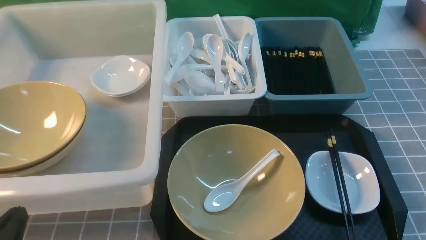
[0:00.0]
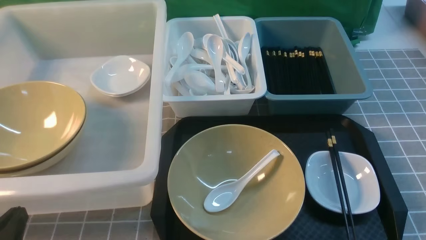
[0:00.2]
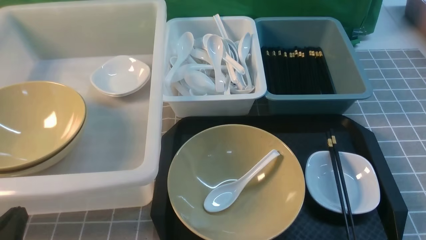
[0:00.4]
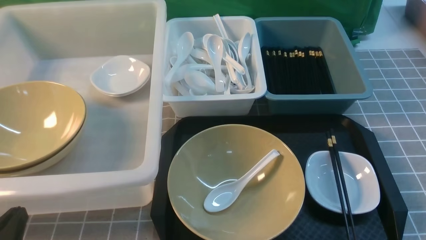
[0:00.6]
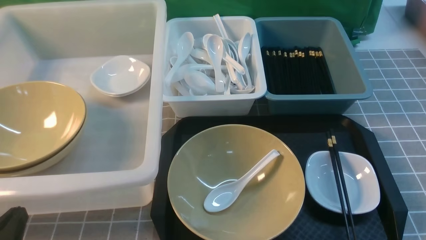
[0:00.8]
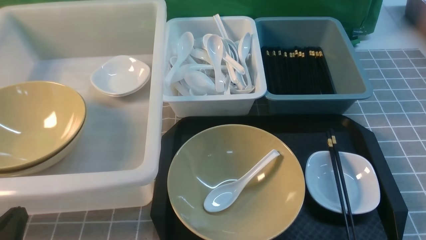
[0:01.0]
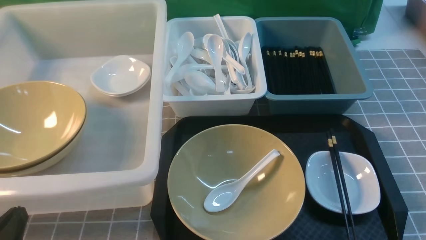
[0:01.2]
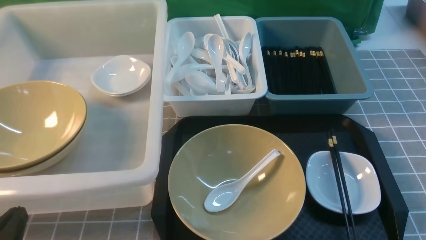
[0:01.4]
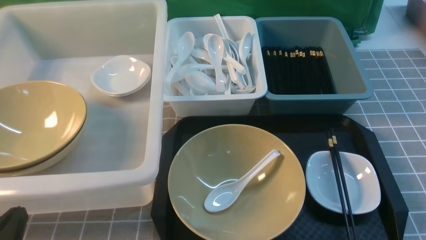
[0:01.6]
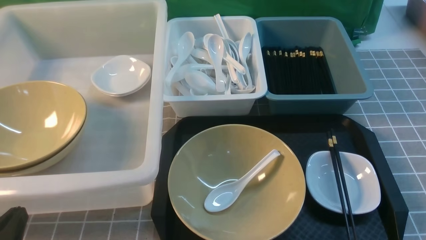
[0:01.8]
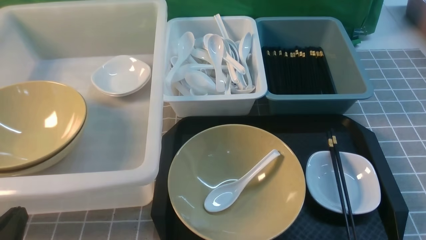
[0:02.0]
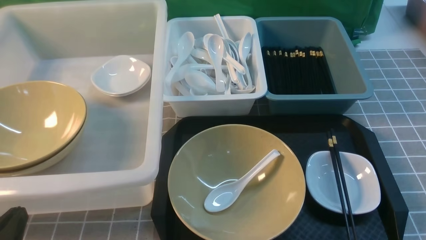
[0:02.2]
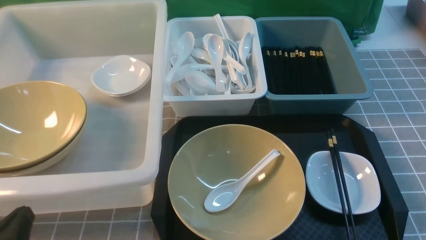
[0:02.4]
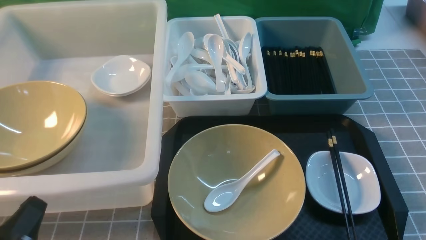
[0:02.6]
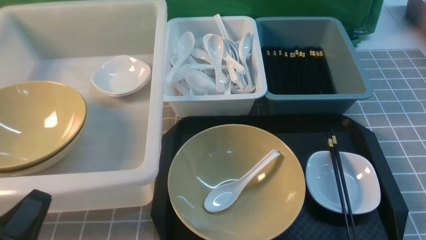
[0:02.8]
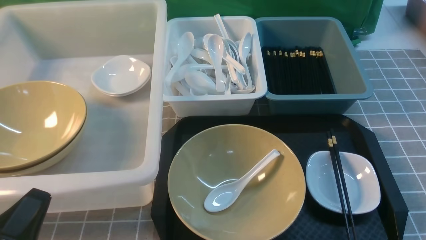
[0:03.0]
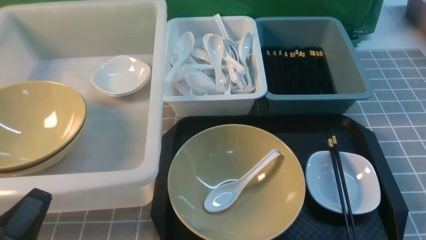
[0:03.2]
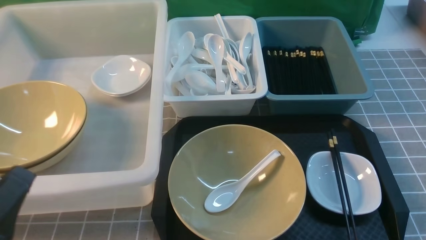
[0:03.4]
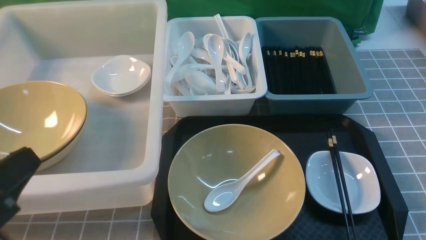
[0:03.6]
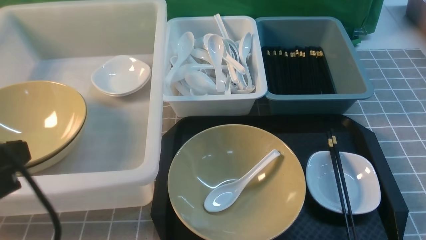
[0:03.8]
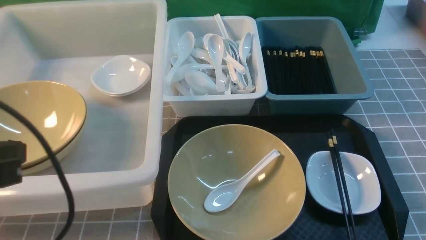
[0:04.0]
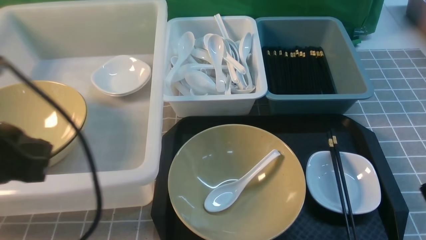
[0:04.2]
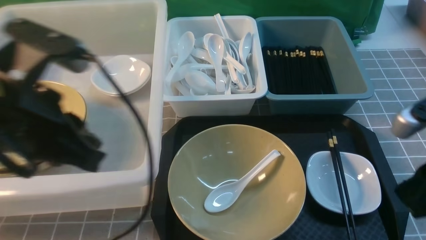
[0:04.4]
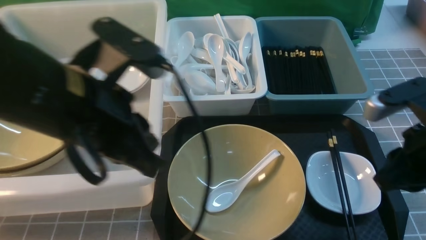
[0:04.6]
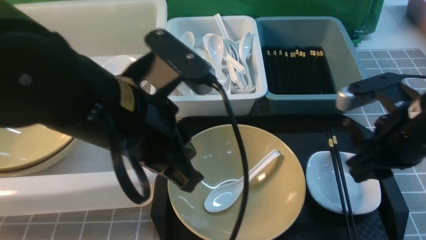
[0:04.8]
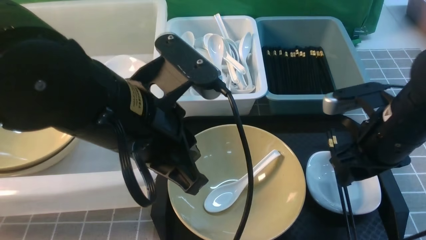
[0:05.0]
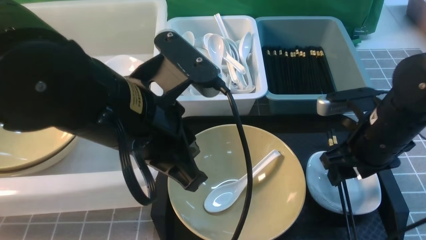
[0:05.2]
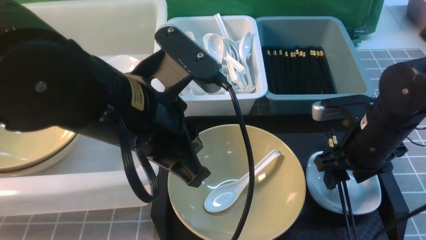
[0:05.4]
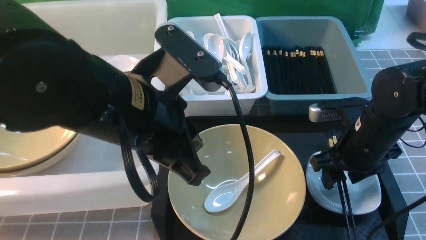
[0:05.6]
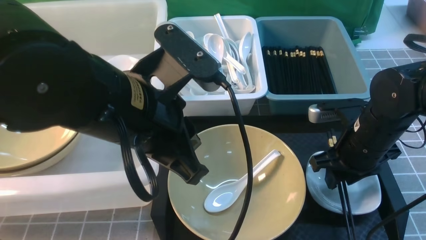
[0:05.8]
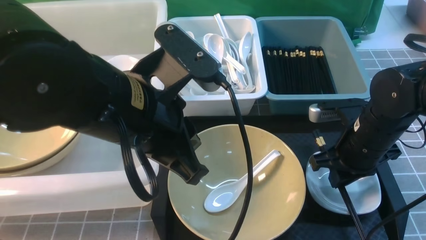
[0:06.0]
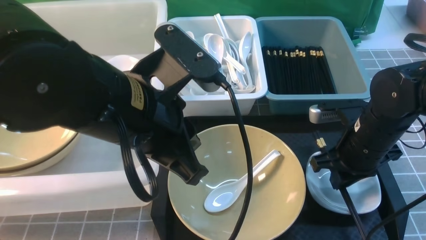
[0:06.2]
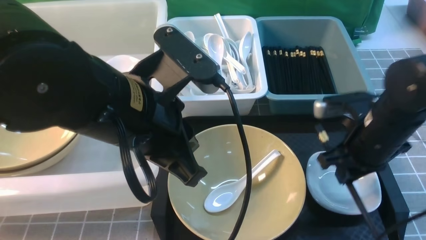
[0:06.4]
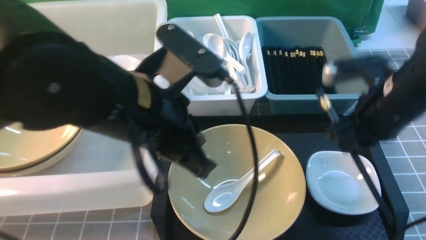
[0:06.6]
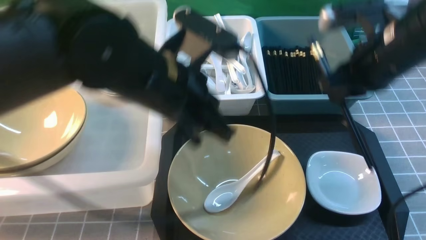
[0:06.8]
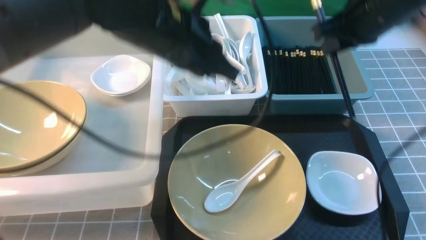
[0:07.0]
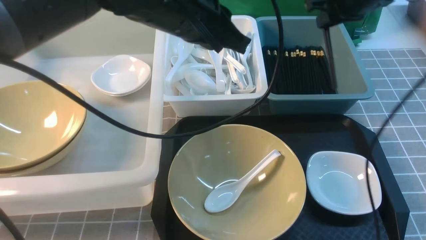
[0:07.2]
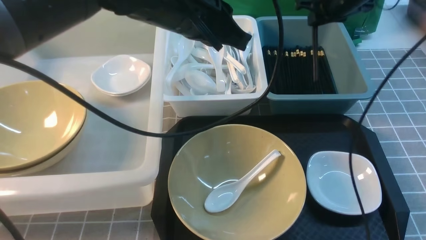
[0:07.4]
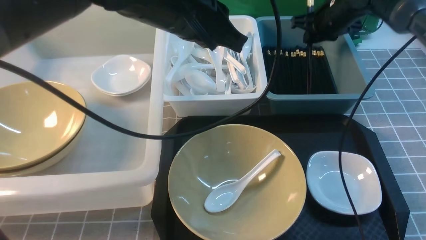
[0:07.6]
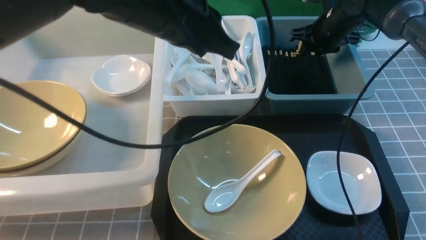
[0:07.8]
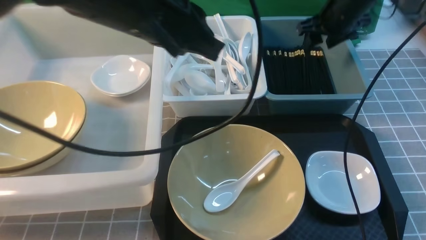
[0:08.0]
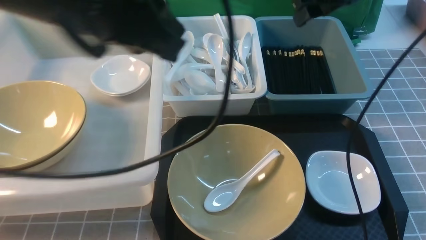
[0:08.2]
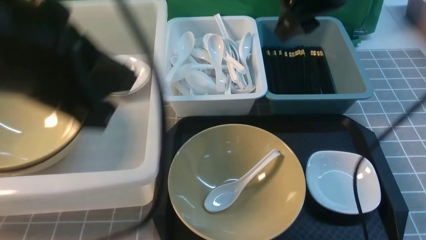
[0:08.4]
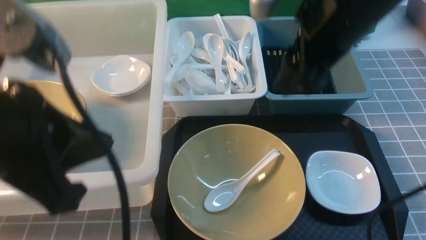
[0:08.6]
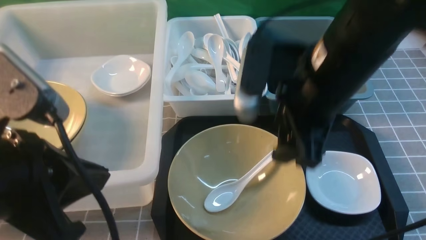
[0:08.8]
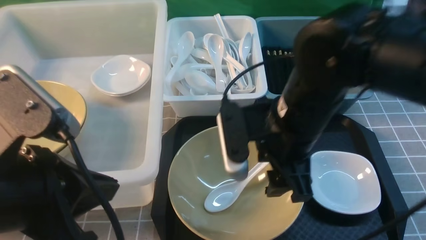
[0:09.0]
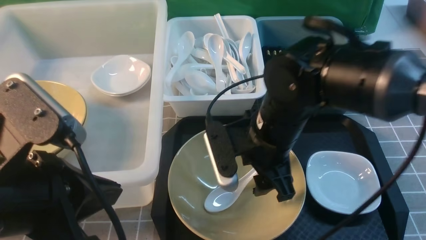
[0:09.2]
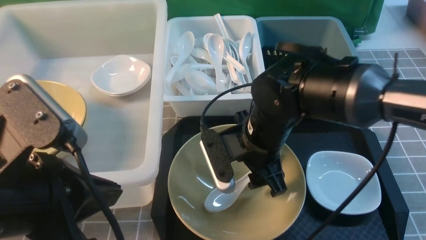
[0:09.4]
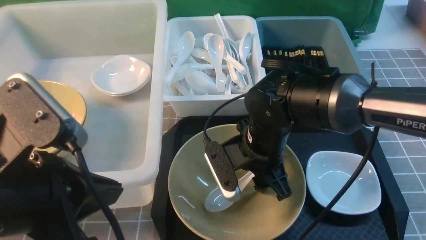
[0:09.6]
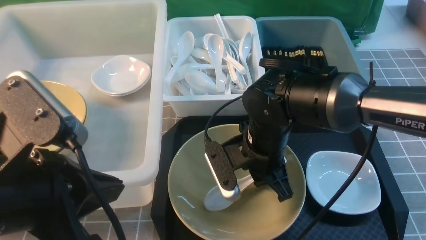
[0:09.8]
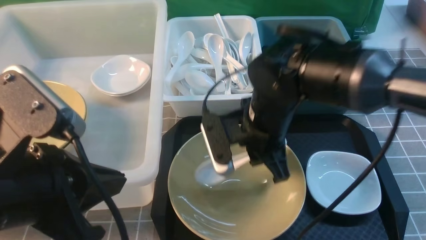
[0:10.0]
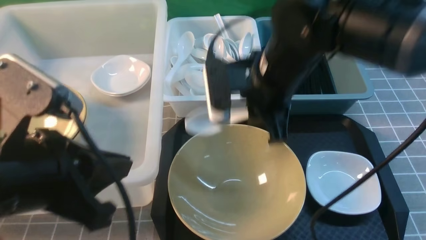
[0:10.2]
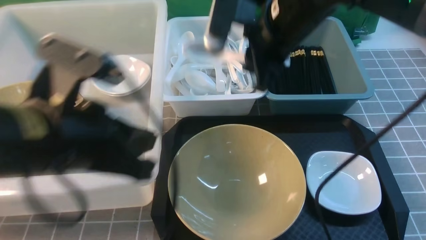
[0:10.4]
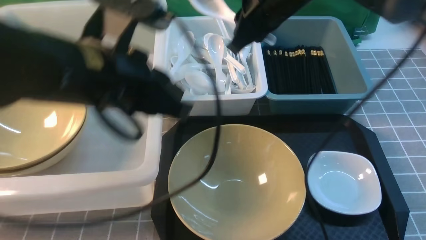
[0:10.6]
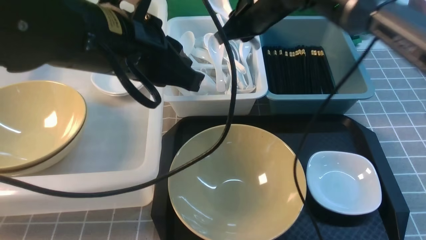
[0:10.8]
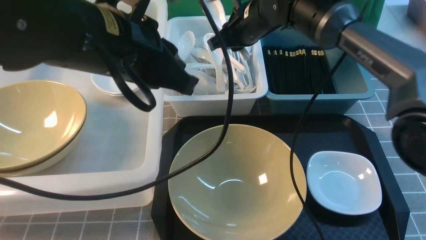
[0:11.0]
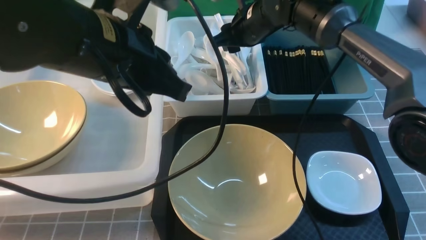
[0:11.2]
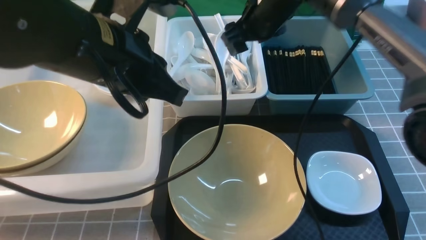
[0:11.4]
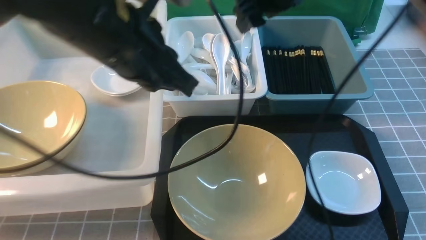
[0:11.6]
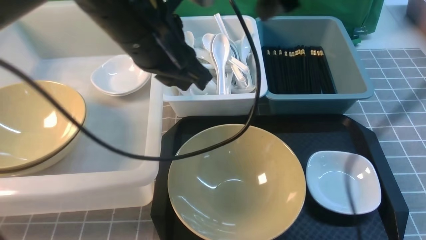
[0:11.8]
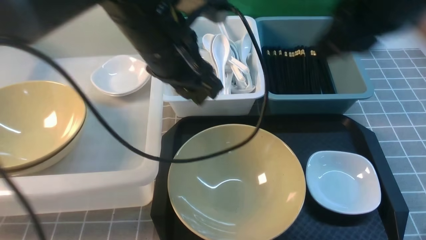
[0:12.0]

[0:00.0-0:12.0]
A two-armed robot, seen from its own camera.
Task of the whole recording: on grey table put chopsticks spoon bowls plates into blue grey white boxes.
Step, 0:00.0 to 0:06.4: use the right arm to grab the chopsticks.
Step, 0:06.8 to 0:08.0: use the right arm to put the chopsticks into the small storage box on the right.
Step, 0:08.2 to 0:10.0: use the right arm to grab the soup spoon in the middle.
Step, 0:10.2 to 0:11.4: use the right arm to put the soup spoon into the small storage box in the middle.
0:00.0 to 0:01.6: Both grippers stay about where they are.
0:03.0 to 0:04.4: The right gripper travels upward, forward and to the left by about 20 cm. Meanwhile the left gripper is displaced upward, forward and to the right by roughly 20 cm.
0:04.4 to 0:06.0: The left gripper goes roughly 10 cm to the right; the right gripper goes some 15 cm forward and downward, and opens, then closes again.
0:06.0 to 0:07.6: The left gripper heads forward, covering approximately 10 cm, while the right gripper shifts roughly 25 cm forward.
0:07.6 to 0:09.0: Both grippers travel together backward and to the left, some 25 cm. The right gripper opens its fingers.
0:09.0 to 0:10.4: The left gripper goes about 5 cm forward. The right gripper moves forward and upward, some 10 cm, and closes its fingers.
0:10.4 to 0:12.0: The right gripper goes roughly 15 cm backward, to the right and upward, and opens, then closes once more. Meanwhile the left gripper moves forward and to the right, approximately 15 cm, and opens its fingers.

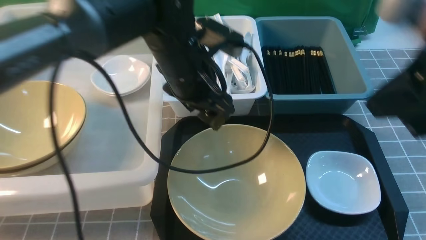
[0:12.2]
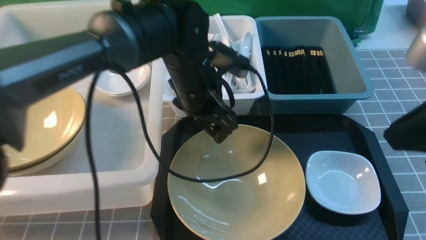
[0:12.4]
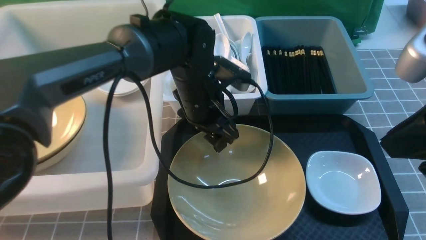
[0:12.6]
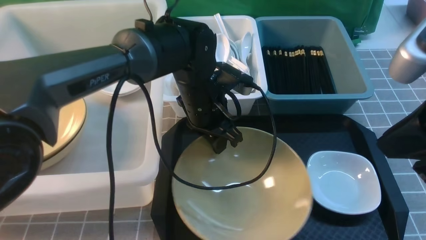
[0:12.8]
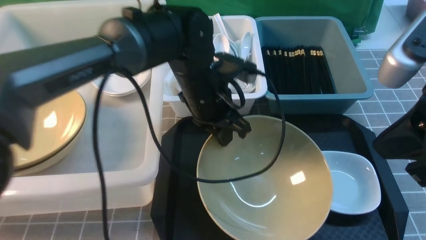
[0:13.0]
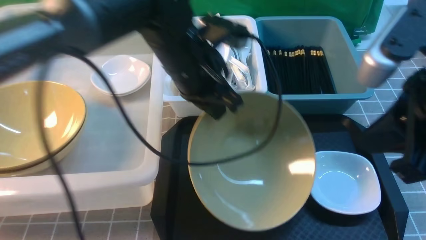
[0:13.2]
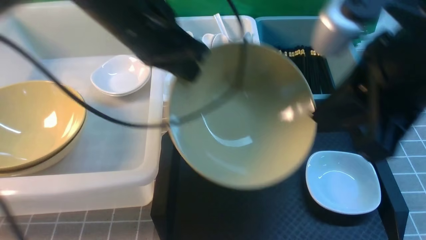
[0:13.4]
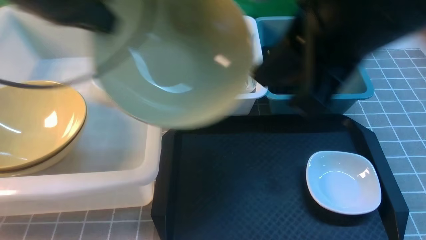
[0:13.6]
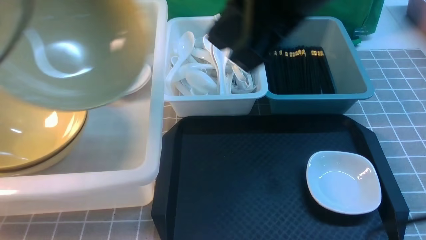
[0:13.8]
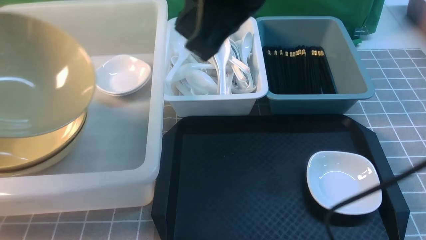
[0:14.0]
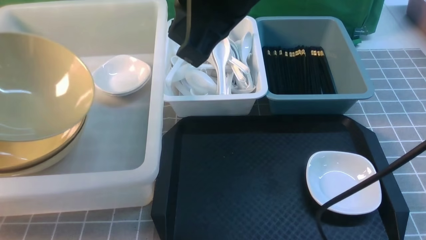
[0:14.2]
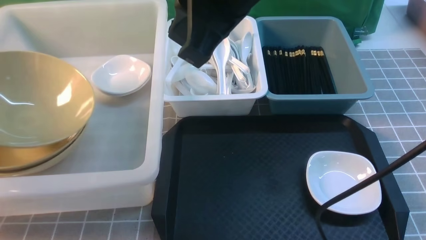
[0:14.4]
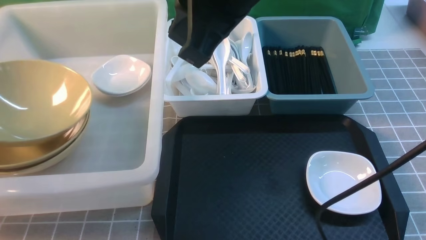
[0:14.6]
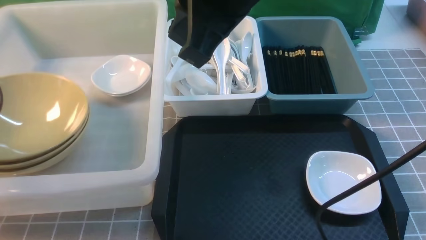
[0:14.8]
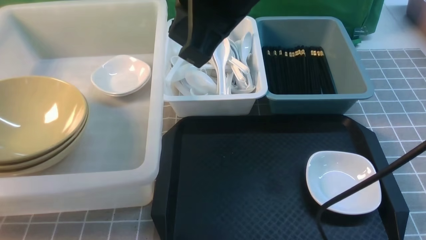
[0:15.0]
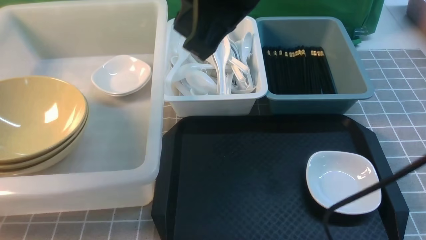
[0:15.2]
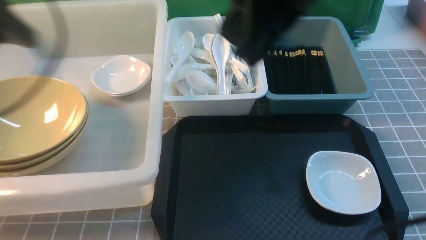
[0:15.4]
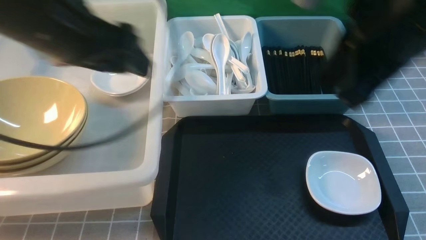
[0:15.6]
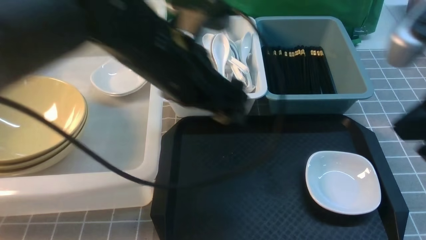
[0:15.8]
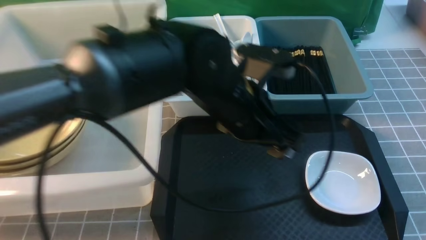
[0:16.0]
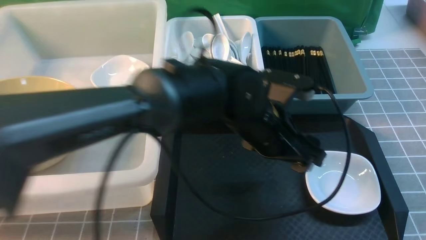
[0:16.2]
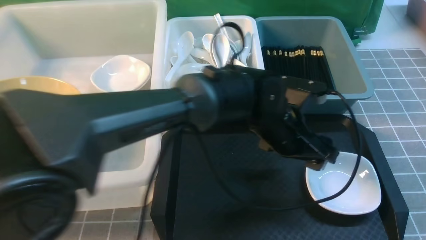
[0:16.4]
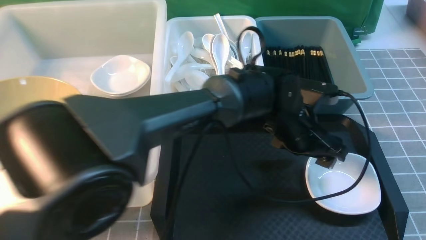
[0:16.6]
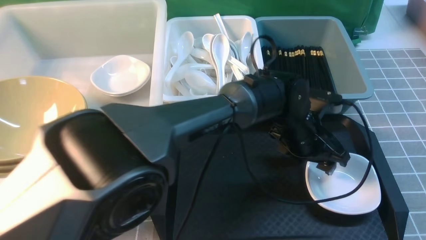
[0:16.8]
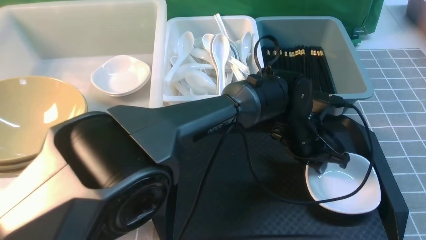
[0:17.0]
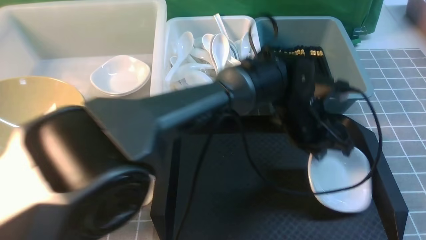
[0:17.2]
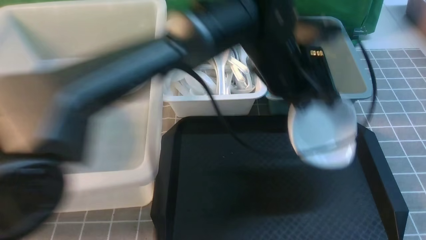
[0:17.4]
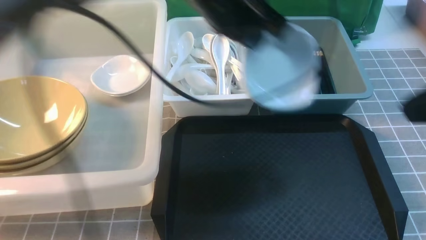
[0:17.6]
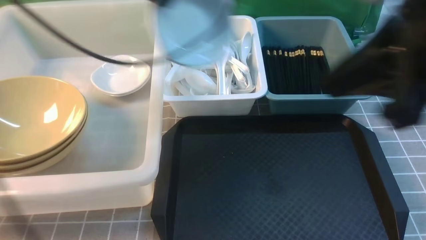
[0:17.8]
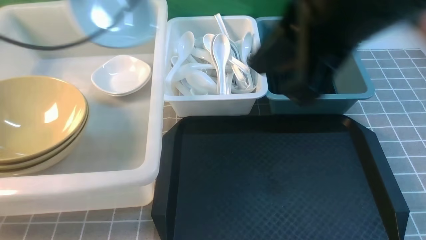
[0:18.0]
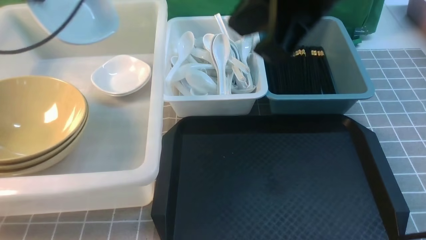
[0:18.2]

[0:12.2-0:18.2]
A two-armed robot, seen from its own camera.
Task of the whole recording: on grey table put chopsticks spoon bowls plates into blue grey white boxes.
Step, 0:12.2 to 0:13.4: use the left arm to grab the yellow noodle bowl on the left.
Step, 0:13.6 to 0:15.0: use the left arm to put the noodle bowl into the large storage box on the left.
Step, 0:15.2 to 0:17.2: use the left arm to grab the plate.
0:12.2 to 0:13.8: The left gripper is displaced to the left and upward by approximately 30 cm, and closes its fingers. The right gripper heads to the left, covering about 15 cm.
0:13.8 to 0:15.2: The left gripper reaches roughly 10 cm downward, then returns, and opens its fingers.
0:15.2 to 0:16.6: The right gripper is displaced to the right and backward by some 25 cm. The left gripper heads to the right and downward, covering some 50 cm.
0:16.6 to 0:18.2: The right gripper goes about 25 cm to the left, forward and upward; the left gripper is displaced to the left and upward by about 50 cm, and closes.
